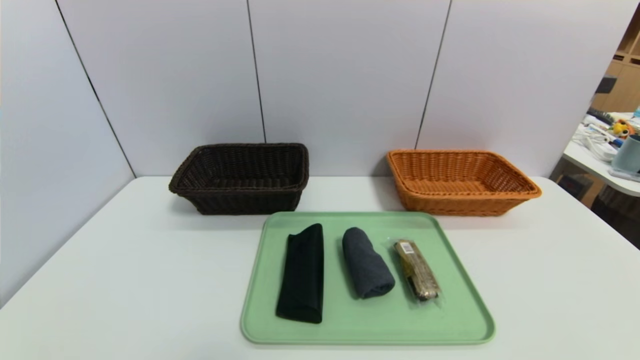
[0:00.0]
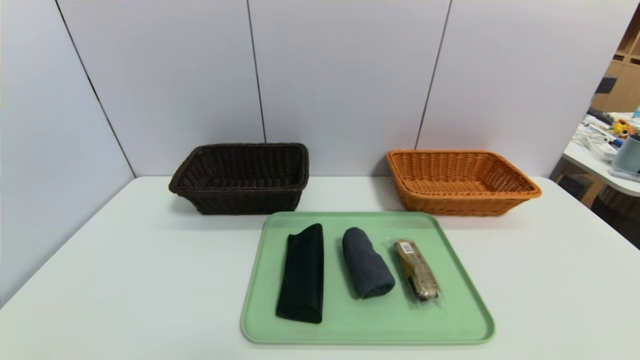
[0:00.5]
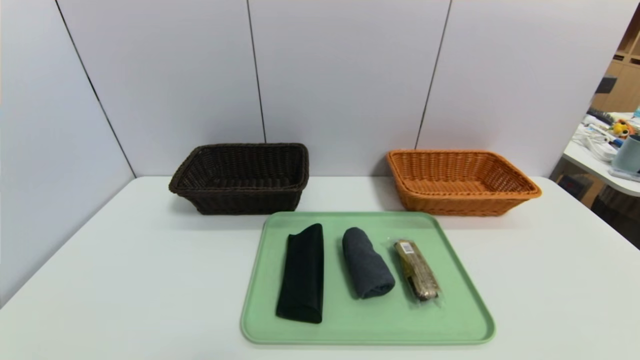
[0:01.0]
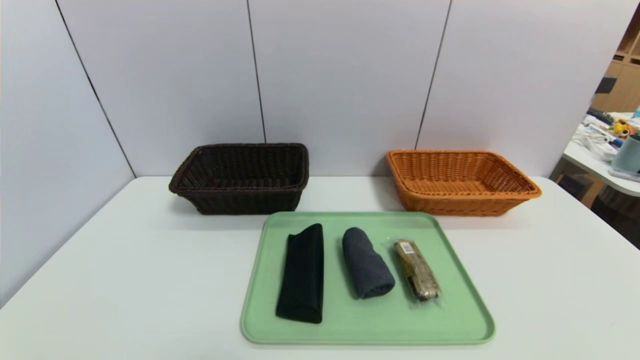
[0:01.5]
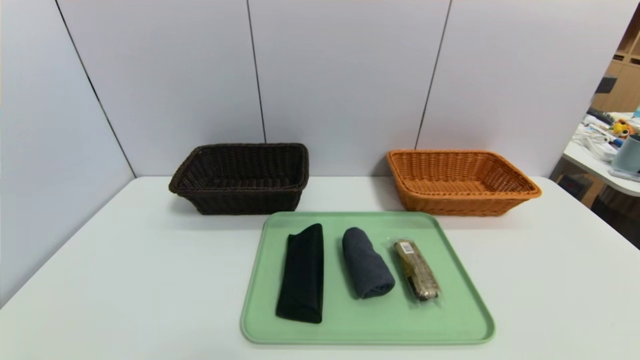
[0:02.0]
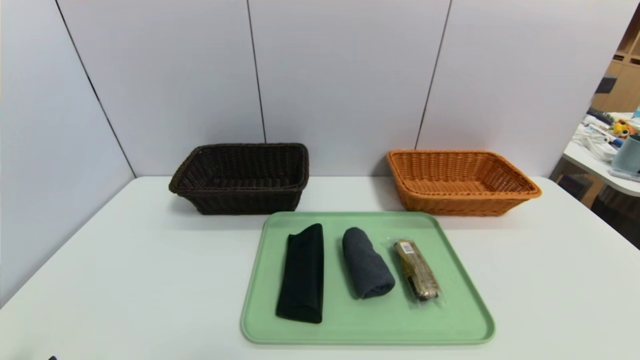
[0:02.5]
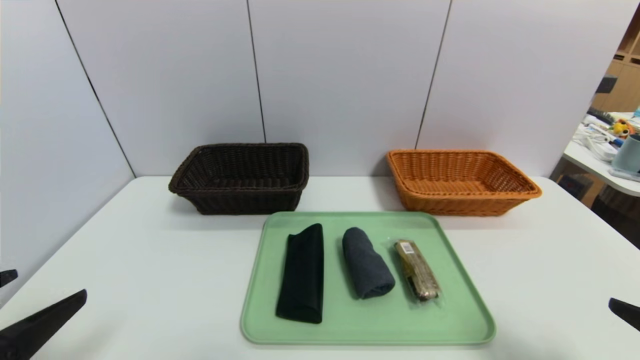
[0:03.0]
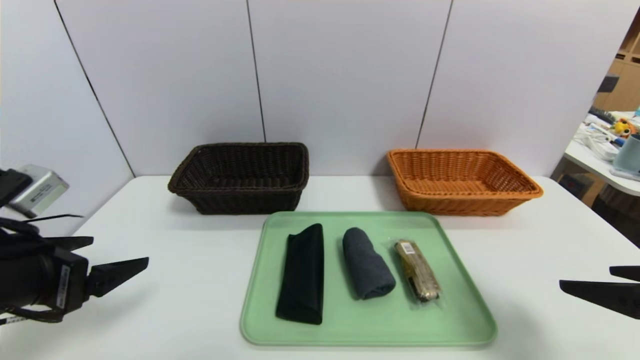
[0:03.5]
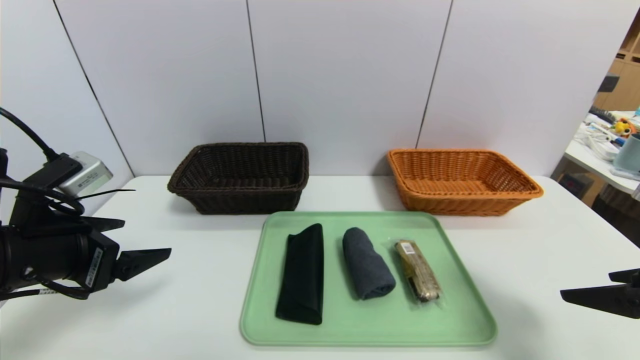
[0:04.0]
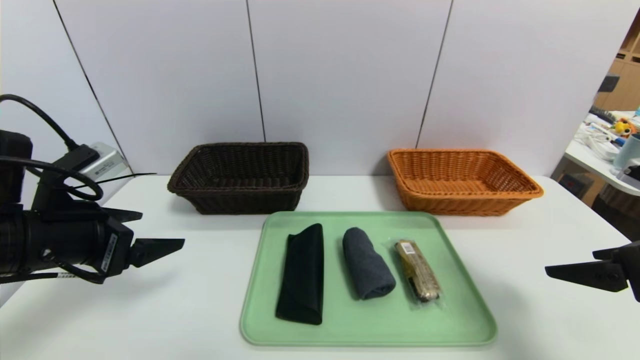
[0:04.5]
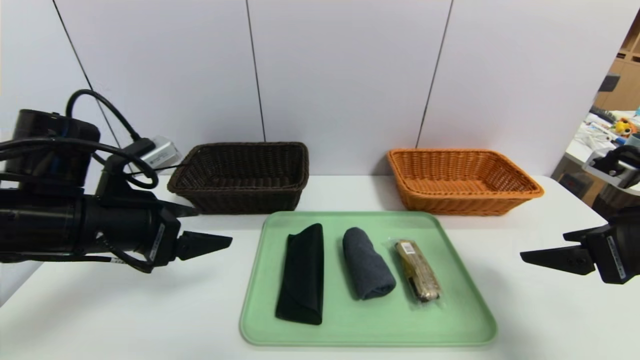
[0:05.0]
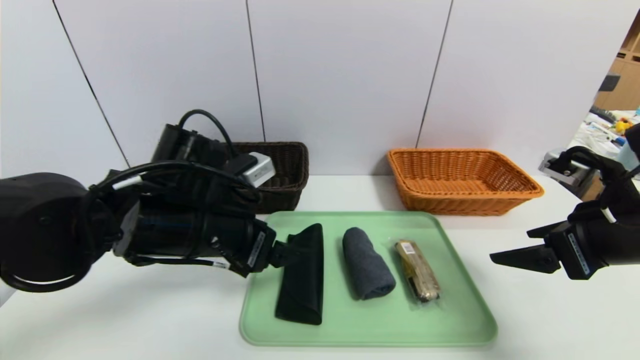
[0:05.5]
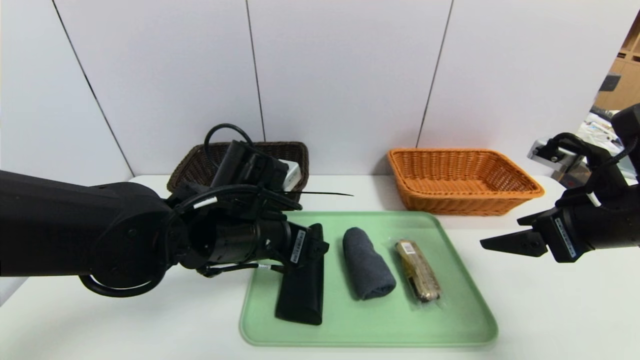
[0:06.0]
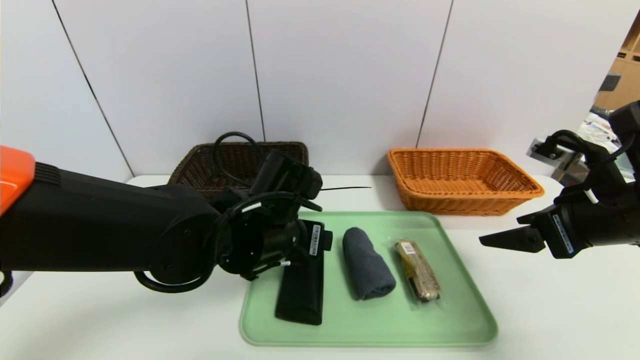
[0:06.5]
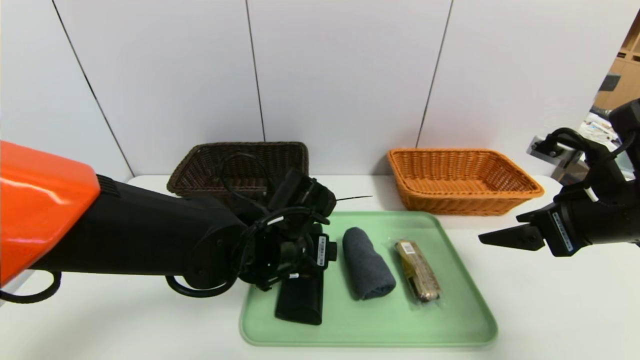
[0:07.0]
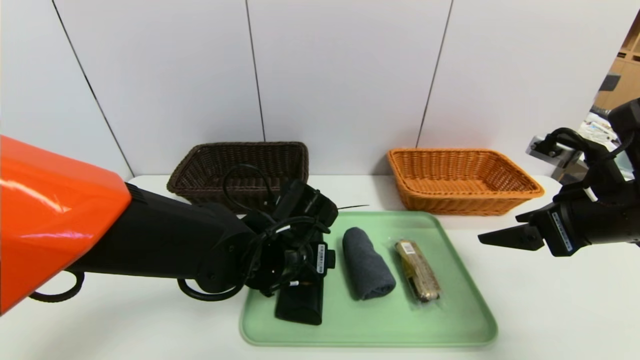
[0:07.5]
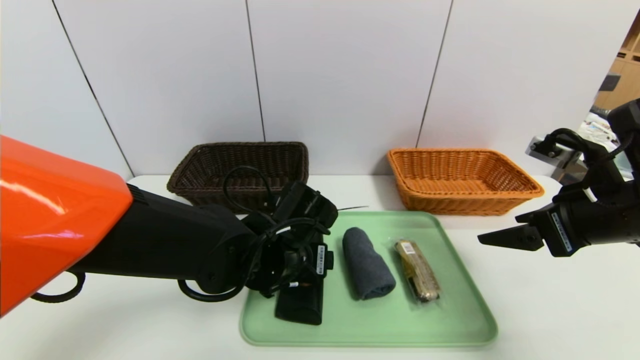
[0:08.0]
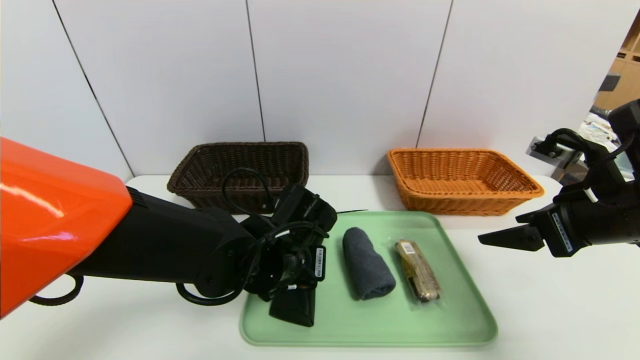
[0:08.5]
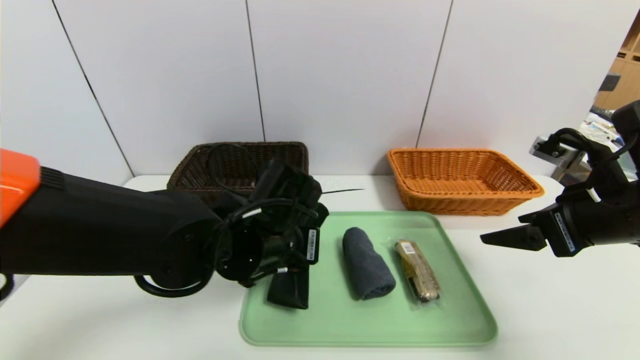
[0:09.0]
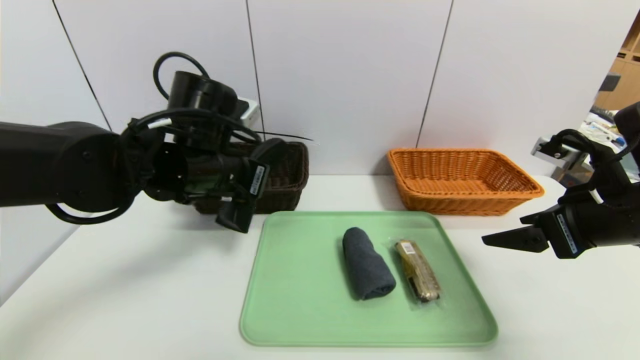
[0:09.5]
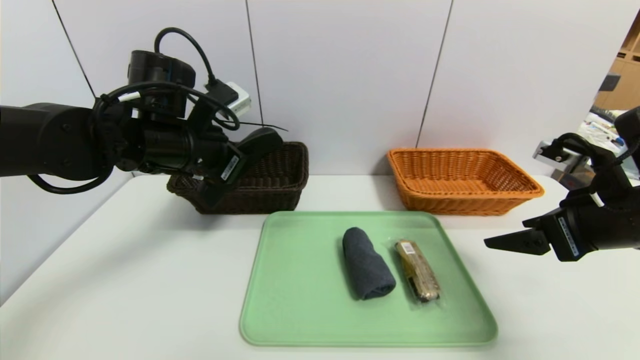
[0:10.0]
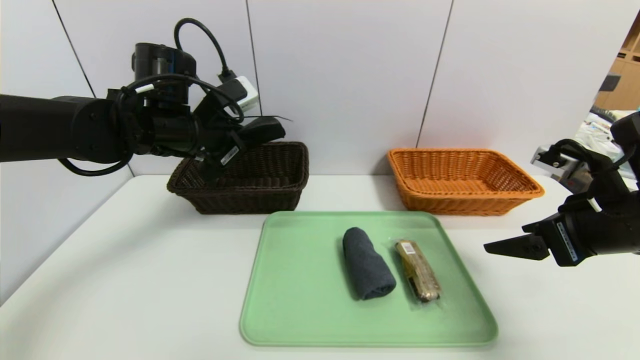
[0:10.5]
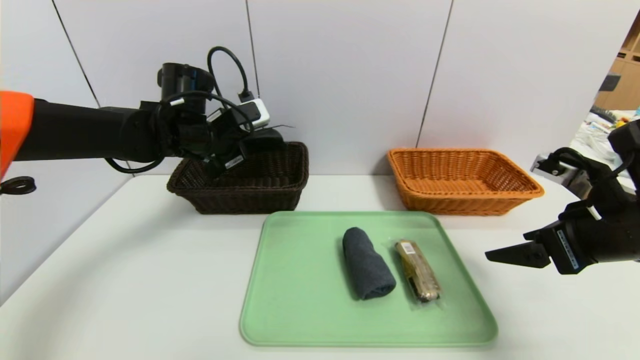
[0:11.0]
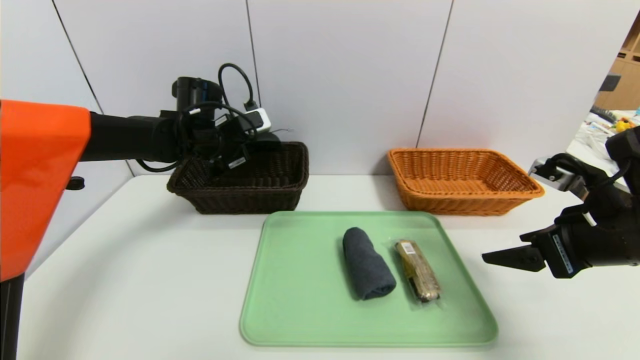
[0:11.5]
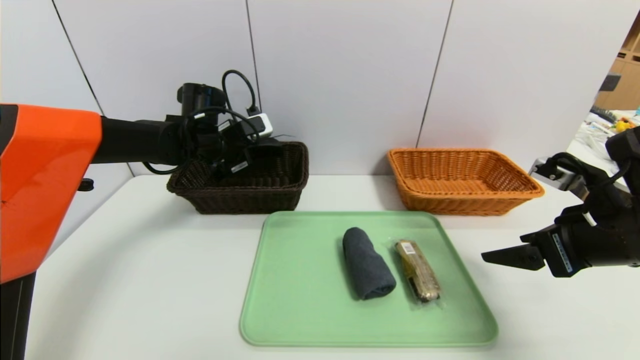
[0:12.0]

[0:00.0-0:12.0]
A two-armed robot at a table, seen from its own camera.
Task of the whole recording: place the food in the right basket with the right gripper, and place the non food items in the left basket with the left gripper.
0:02.0 to 0:04.0: The two grippers go approximately 20 cm forward and upward.
0:04.0 to 0:06.0: The left gripper heads to the right, covering some 20 cm. The right gripper shifts roughly 10 cm forward.
0:06.0 to 0:08.0: The left gripper shifts approximately 5 cm downward.
0:08.0 to 0:10.0: The left gripper heads to the left, upward and forward, covering about 20 cm, and closes up.
0:10.0 to 0:12.0: The left gripper shifts roughly 15 cm forward and downward.

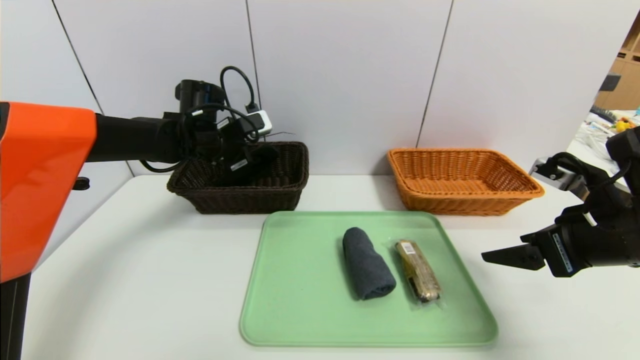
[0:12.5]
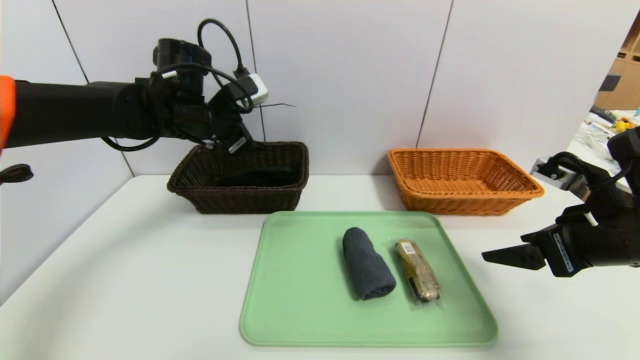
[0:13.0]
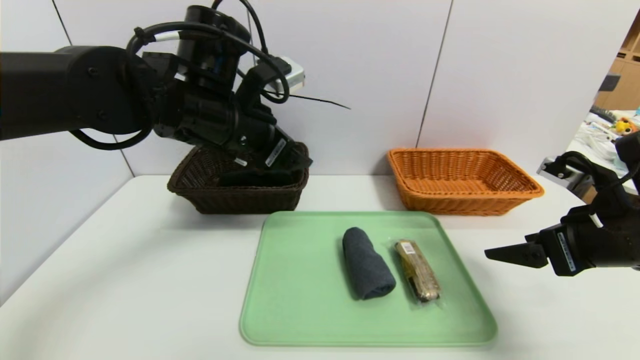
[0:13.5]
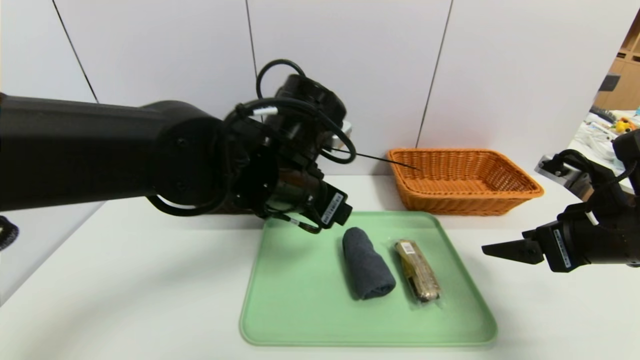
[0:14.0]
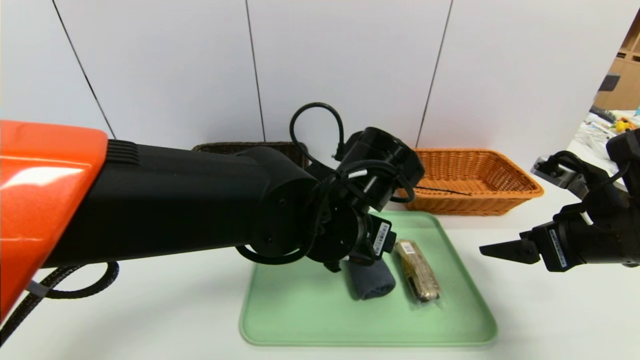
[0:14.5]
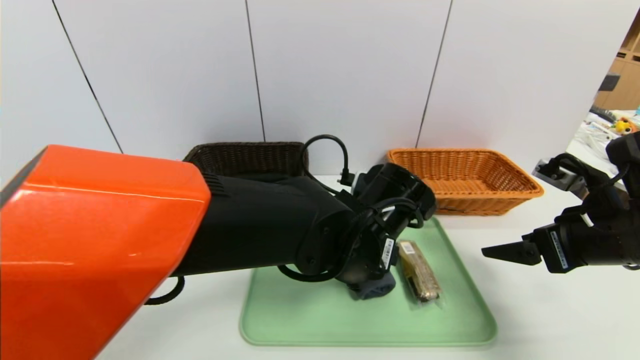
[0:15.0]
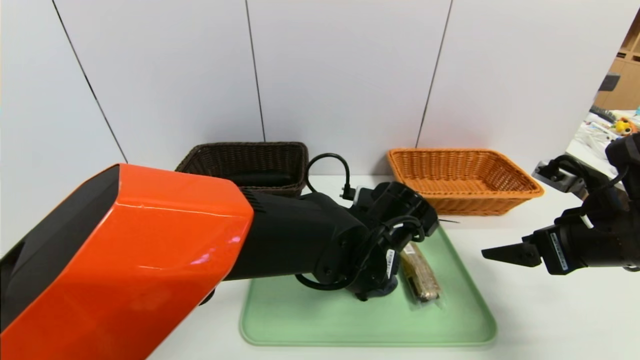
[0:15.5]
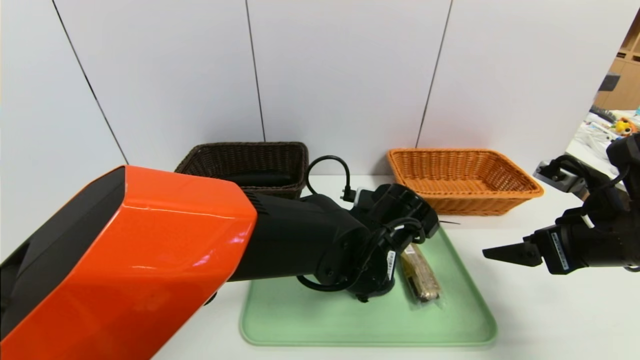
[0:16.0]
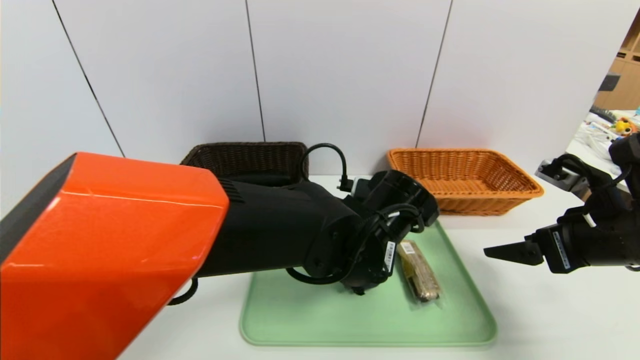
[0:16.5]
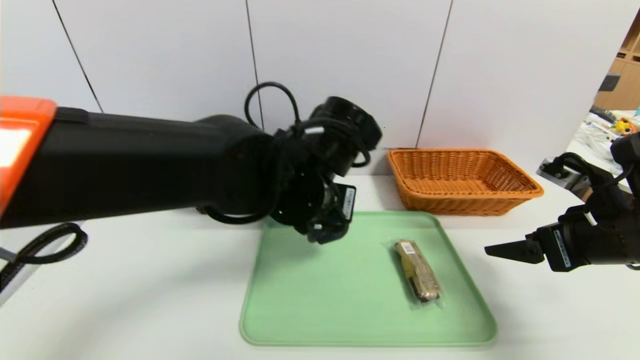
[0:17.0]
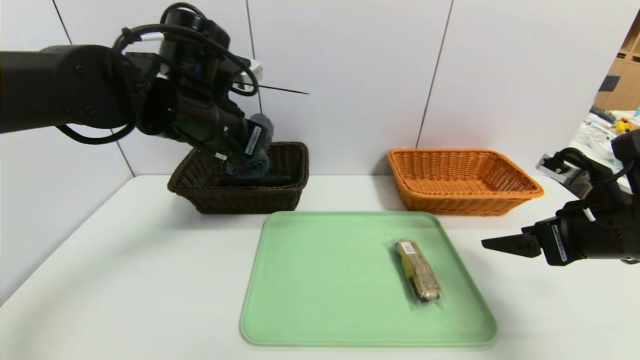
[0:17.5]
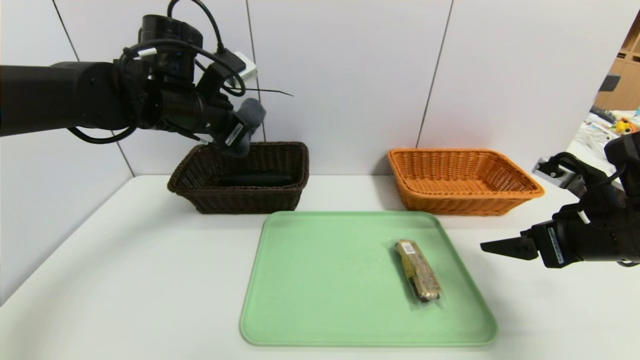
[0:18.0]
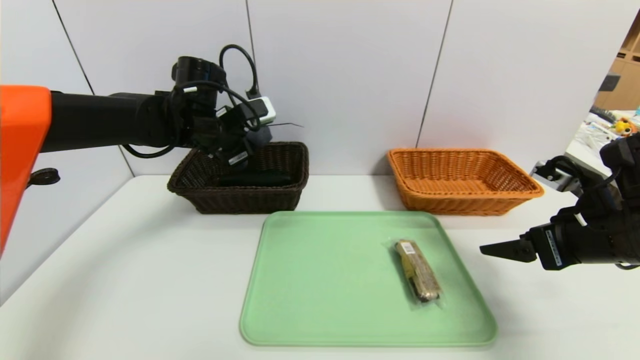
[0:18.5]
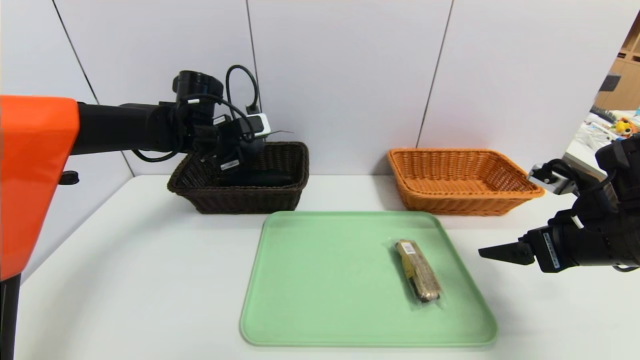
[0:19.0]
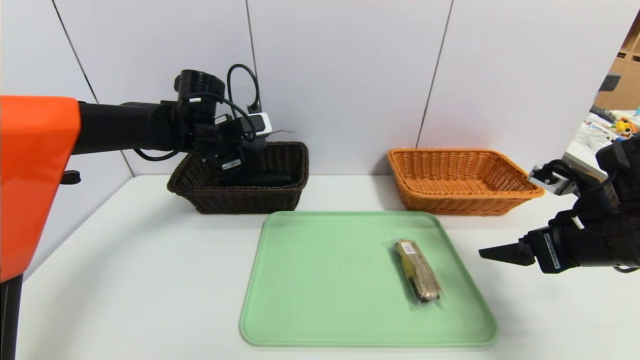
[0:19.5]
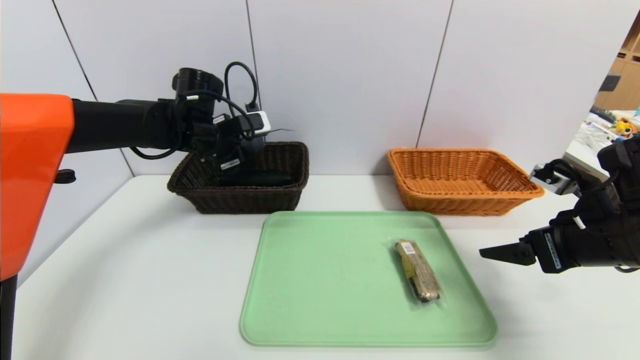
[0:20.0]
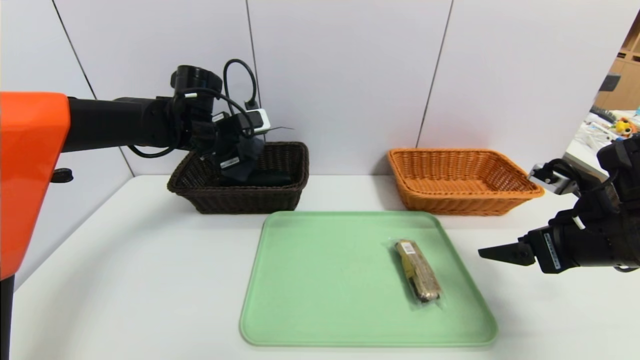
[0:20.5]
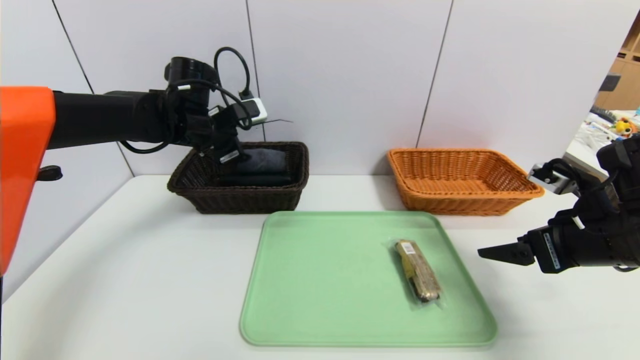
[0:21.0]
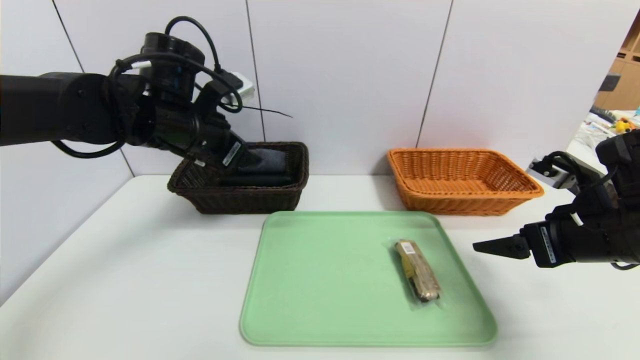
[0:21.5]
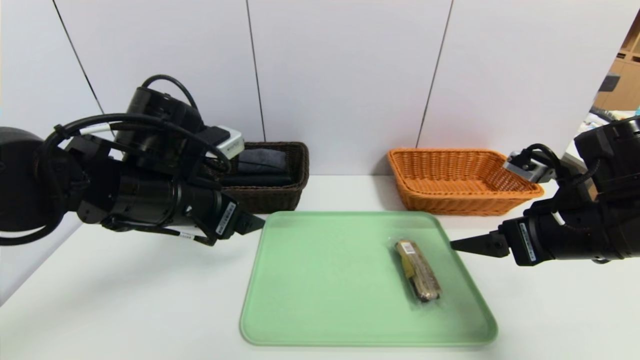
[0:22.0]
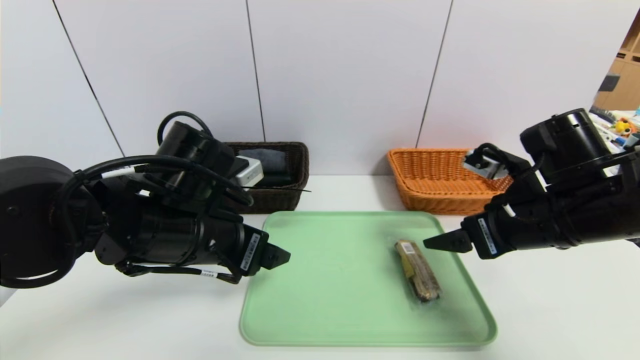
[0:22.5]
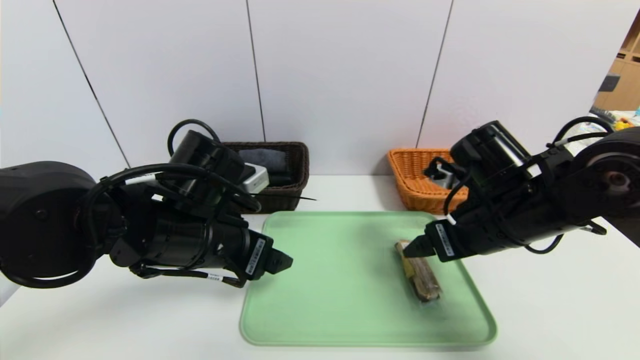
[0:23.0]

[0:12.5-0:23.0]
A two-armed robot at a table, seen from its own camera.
Task of the whole recording: place the food in the right basket with the right gripper, and place the non food items in the left basket with the left gripper.
Step, 0:13.0 to 0:20.5: Grasp the grey towel and put it in the left basket.
0:12.5 to 0:14.5: The left gripper goes approximately 30 cm to the right and backward.
0:14.5 to 0:16.5: The left gripper closes up.
0:16.5 to 0:19.0: The left gripper is displaced to the left and forward by some 30 cm.
0:19.0 to 0:21.0: The left gripper opens up.
0:21.0 to 0:23.0: The left gripper shifts about 20 cm backward. Meanwhile the right gripper shifts approximately 10 cm to the left.
